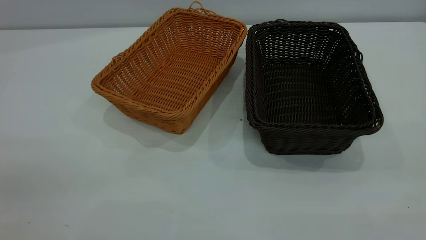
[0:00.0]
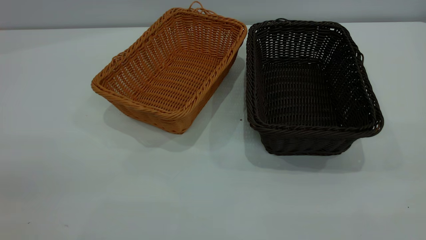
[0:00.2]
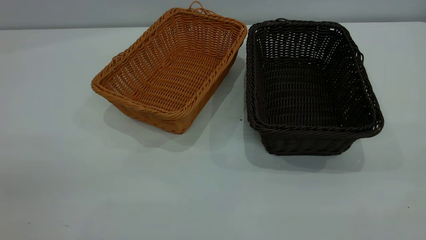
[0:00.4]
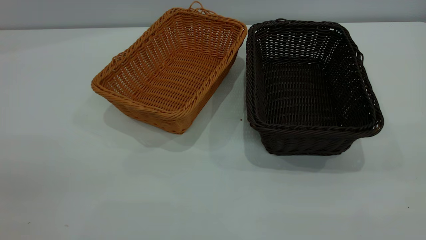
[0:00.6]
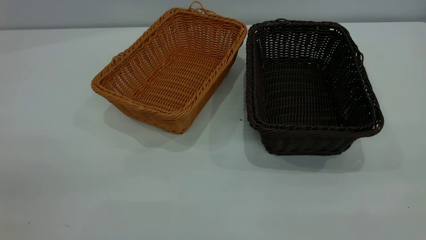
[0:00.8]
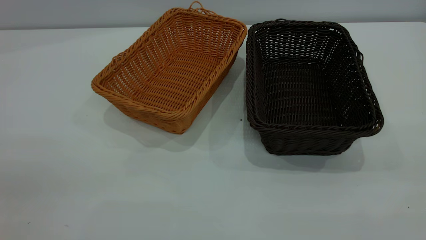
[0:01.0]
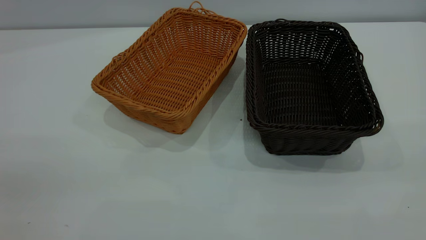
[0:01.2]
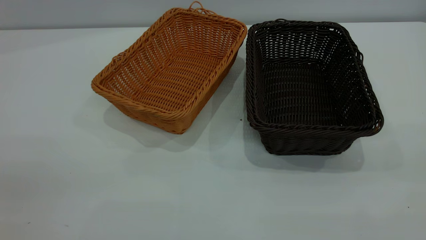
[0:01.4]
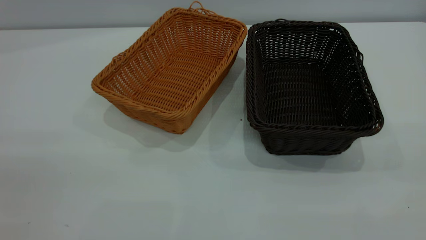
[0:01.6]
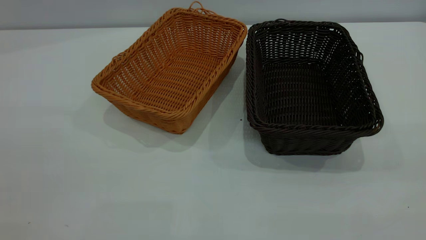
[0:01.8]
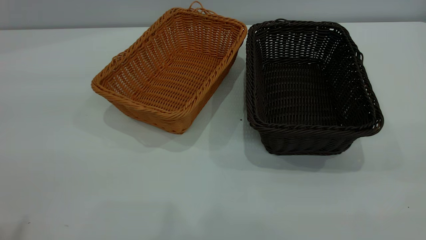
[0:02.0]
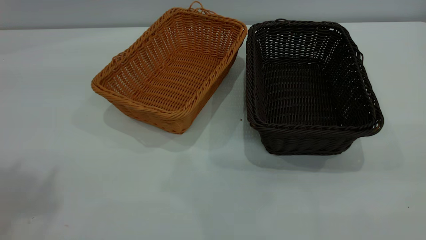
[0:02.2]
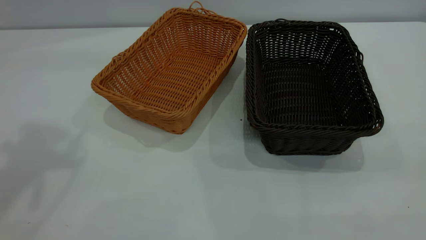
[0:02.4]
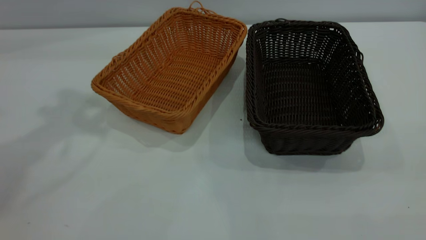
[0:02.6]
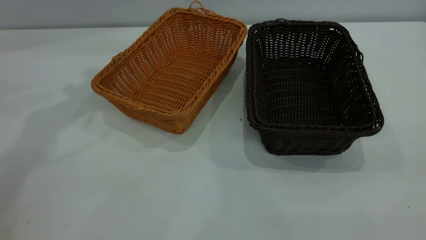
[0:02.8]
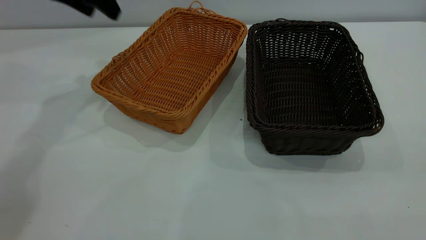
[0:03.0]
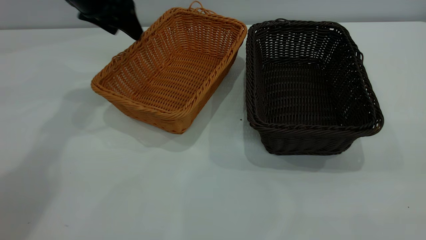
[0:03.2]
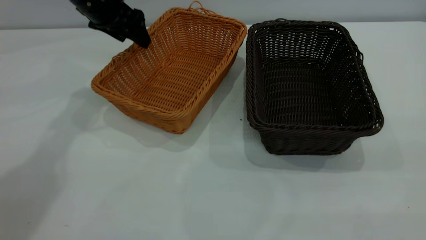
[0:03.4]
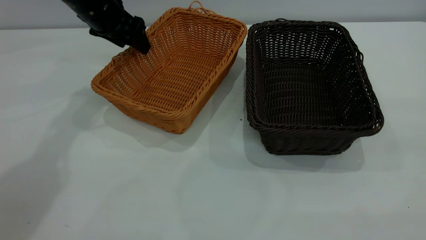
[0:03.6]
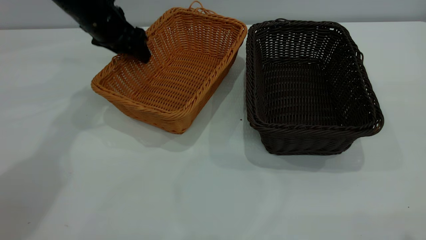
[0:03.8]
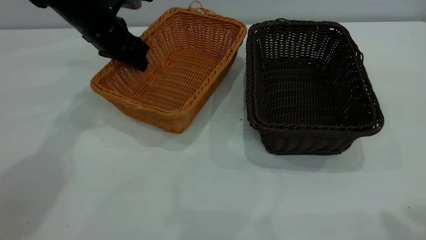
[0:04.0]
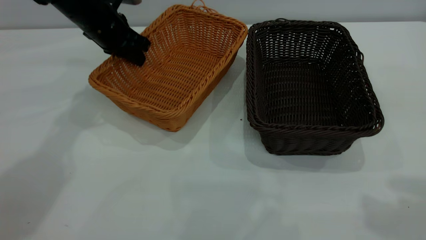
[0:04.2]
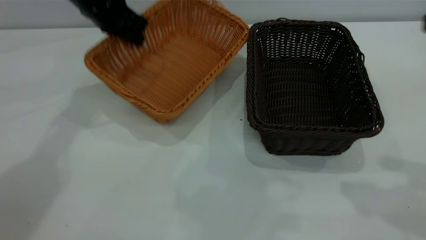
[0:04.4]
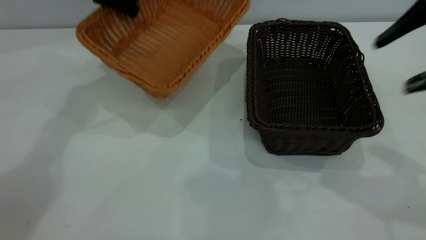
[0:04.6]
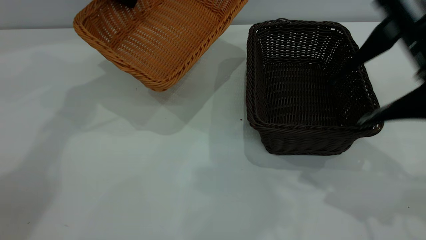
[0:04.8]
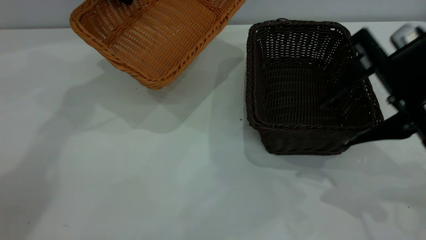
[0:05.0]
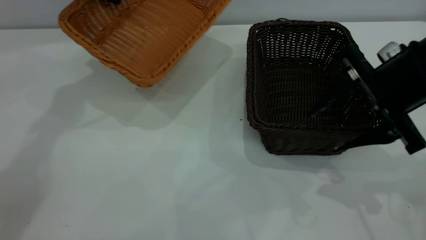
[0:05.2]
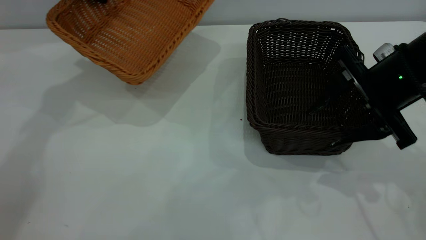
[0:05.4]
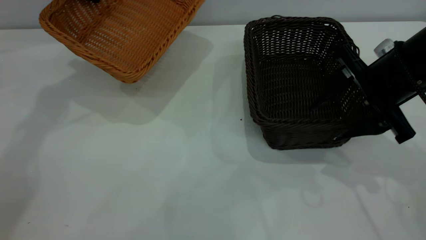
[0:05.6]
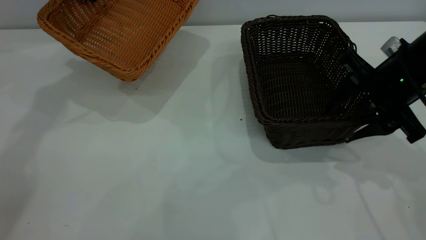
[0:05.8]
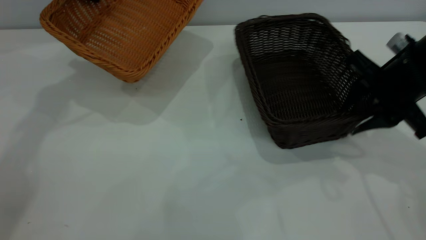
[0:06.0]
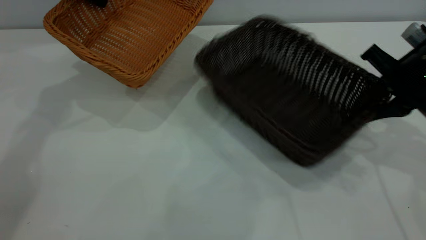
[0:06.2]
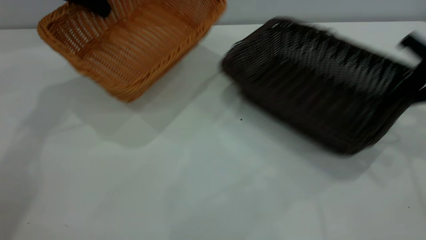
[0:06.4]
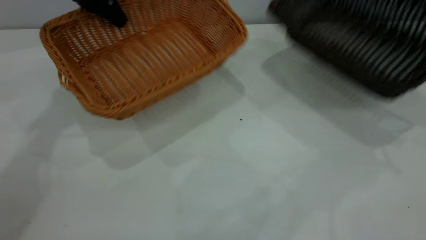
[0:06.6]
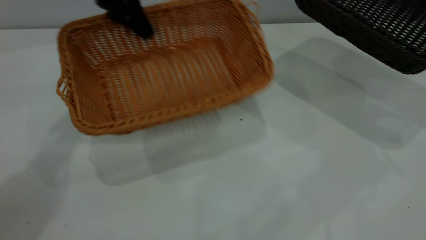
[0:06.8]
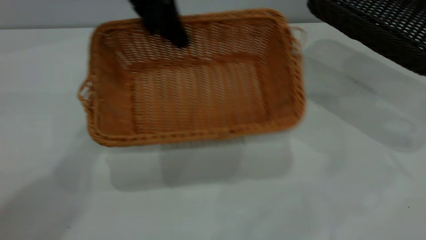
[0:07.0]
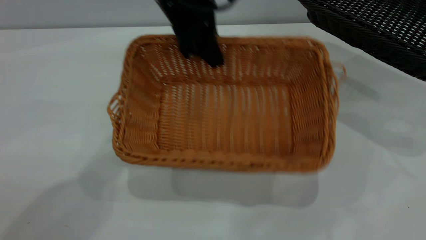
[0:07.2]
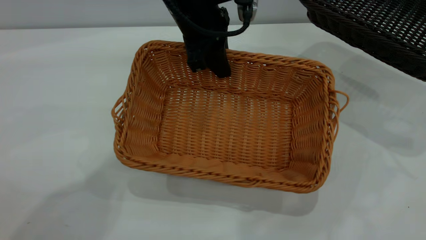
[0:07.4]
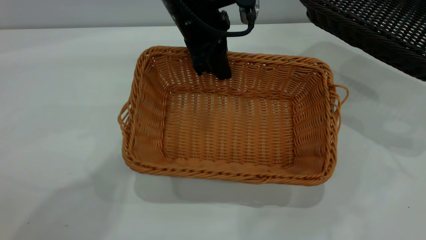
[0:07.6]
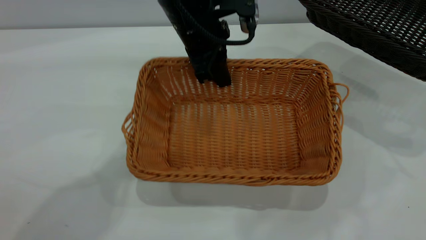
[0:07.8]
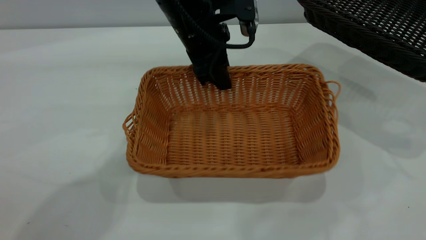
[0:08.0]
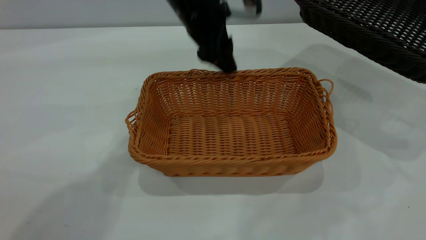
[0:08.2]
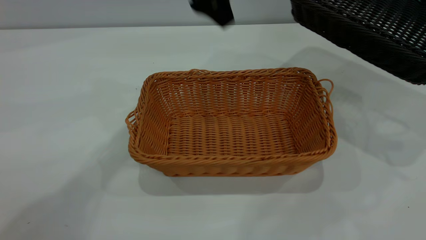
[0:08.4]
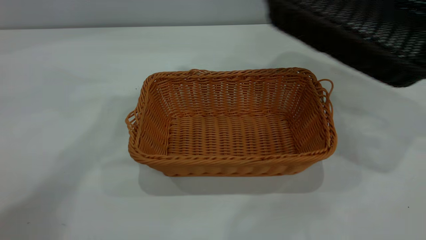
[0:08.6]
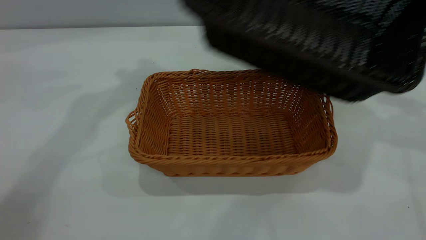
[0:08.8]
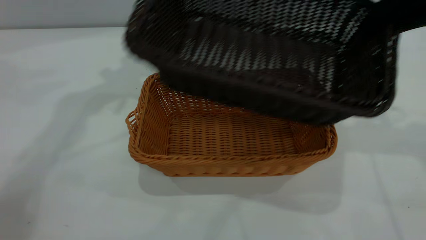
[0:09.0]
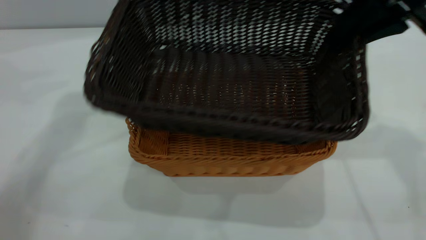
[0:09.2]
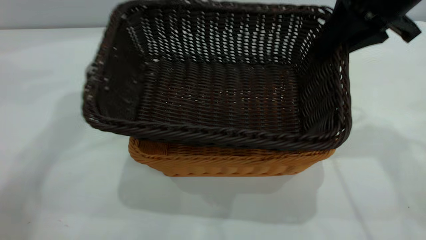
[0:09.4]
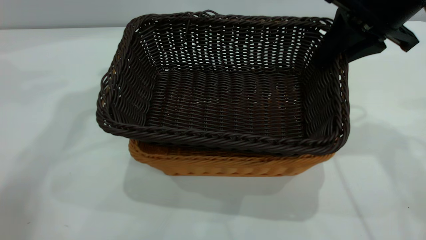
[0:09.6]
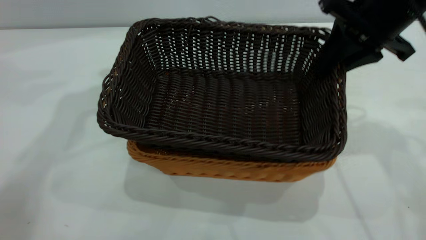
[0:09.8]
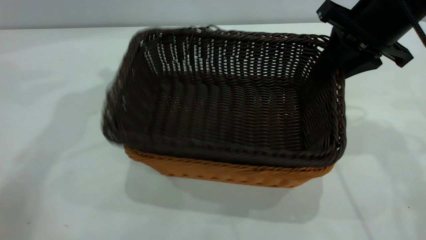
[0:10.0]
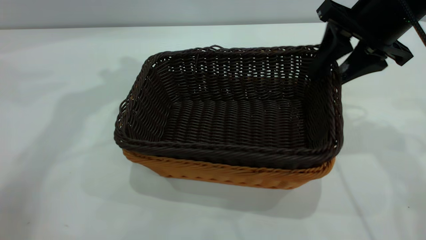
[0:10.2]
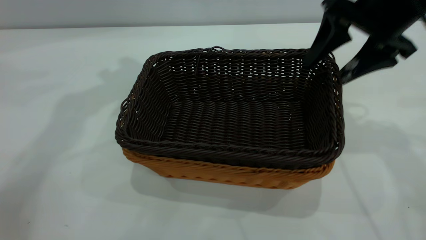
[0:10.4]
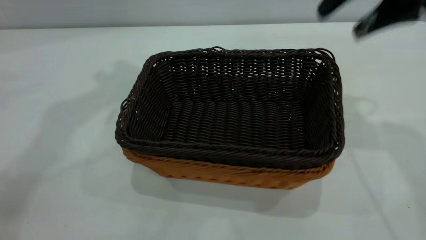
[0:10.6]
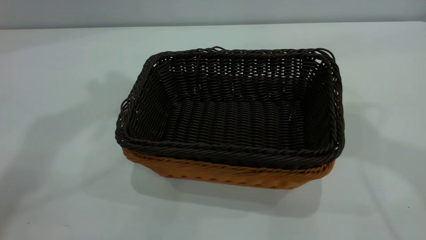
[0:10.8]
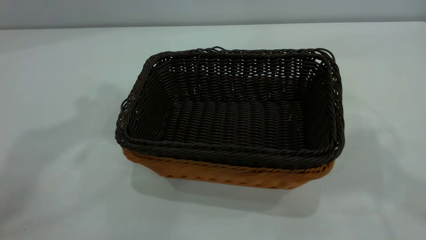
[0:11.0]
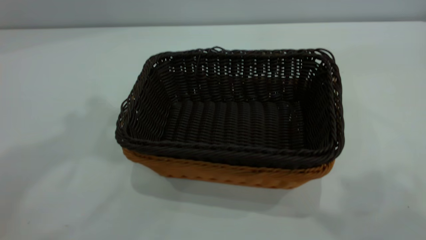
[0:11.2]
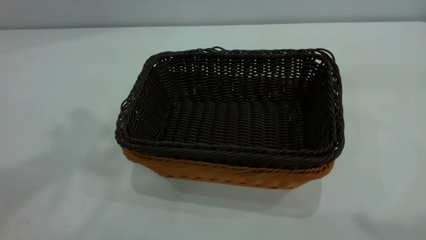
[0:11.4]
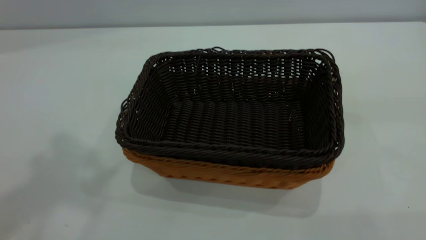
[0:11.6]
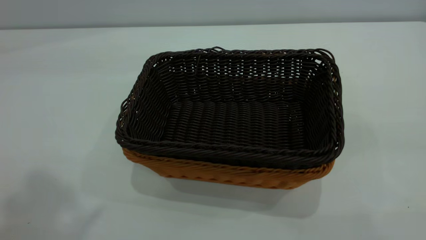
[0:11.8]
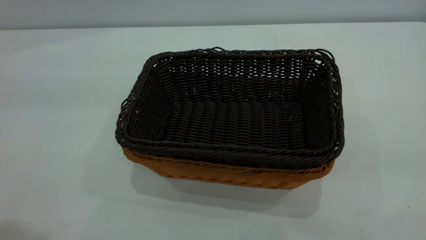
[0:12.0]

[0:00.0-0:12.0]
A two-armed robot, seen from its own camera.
Task of the whole recording: the left gripper grasp the brown basket and place it in the center of the table, the right gripper grasp the black basket and place it inside the brown one.
Step, 0:00.0 to 0:04.8: Pick up the light basket with the right gripper.
Step, 0:05.0 to 0:08.2: Place the light-colored basket in the center.
Step, 0:08.4 to 0:10.4: Place the dark basket on top of the light basket.
0:01.6 to 0:03.0: The left gripper goes about 50 cm forward.
0:03.0 to 0:04.4: The left gripper closes up. Meanwhile the right gripper moves forward, about 20 cm.
0:04.4 to 0:06.0: The left gripper is displaced to the left and upward by about 10 cm, while the right gripper moves downward and forward, some 20 cm, and closes its fingers.
0:06.0 to 0:07.6: The left gripper is displaced to the right and backward by roughly 25 cm, while the right gripper shifts roughly 20 cm to the right and upward.
0:07.6 to 0:09.0: The right gripper goes approximately 20 cm to the left, while the left gripper moves upward and to the left, about 20 cm, and opens its fingers.
0:09.0 to 0:10.4: The right gripper shifts by roughly 5 cm, and opens up.
0:10.4 to 0:12.0: The left gripper shifts approximately 35 cm backward; the right gripper shifts some 40 cm backward and upward.

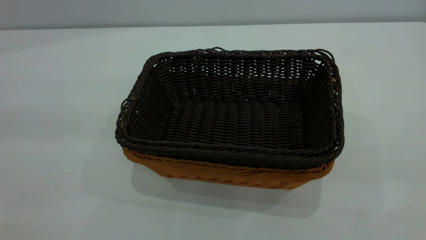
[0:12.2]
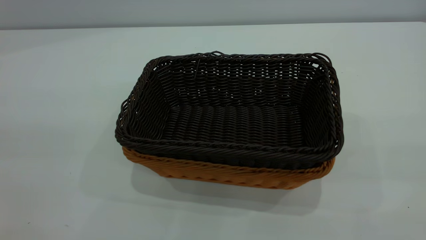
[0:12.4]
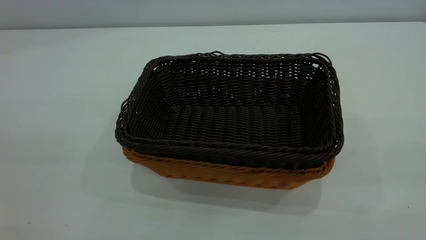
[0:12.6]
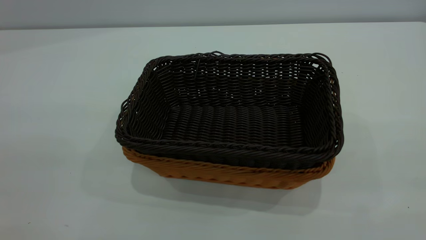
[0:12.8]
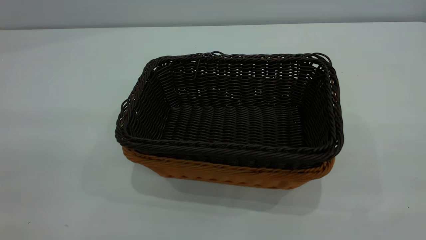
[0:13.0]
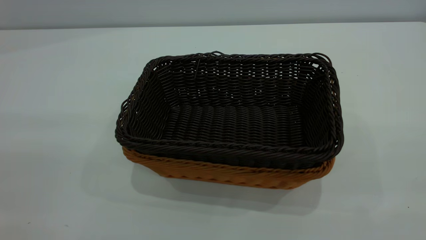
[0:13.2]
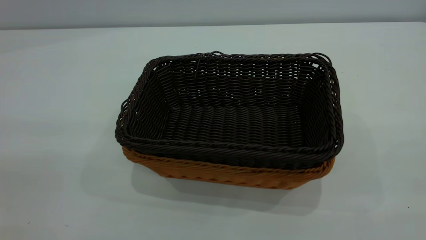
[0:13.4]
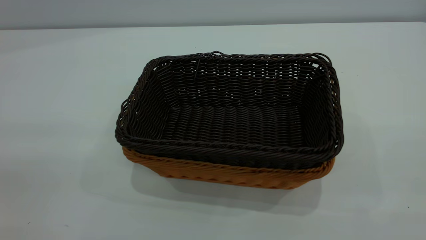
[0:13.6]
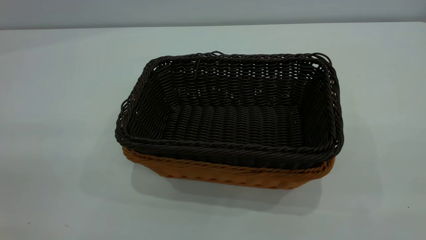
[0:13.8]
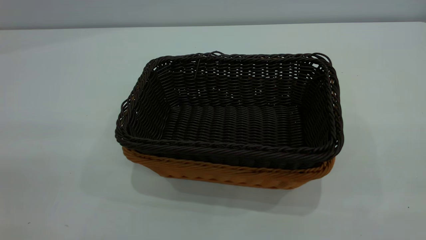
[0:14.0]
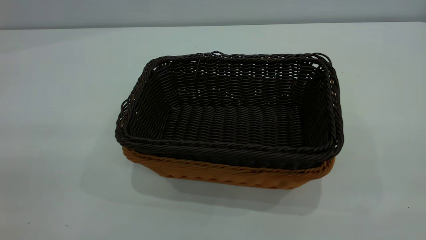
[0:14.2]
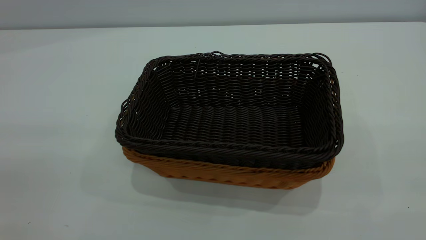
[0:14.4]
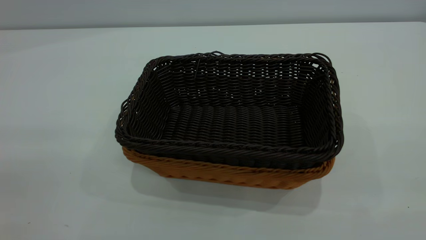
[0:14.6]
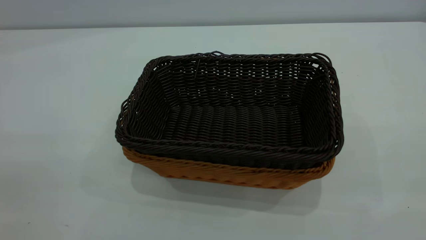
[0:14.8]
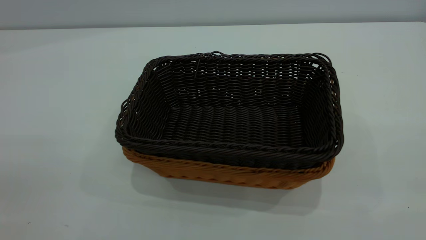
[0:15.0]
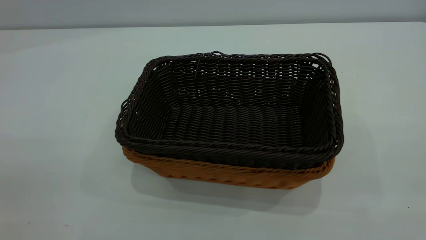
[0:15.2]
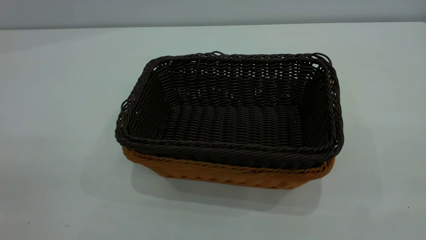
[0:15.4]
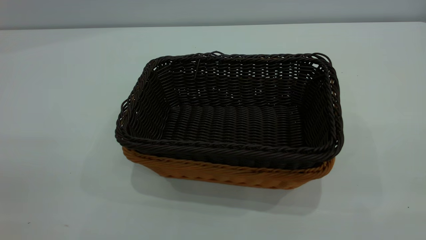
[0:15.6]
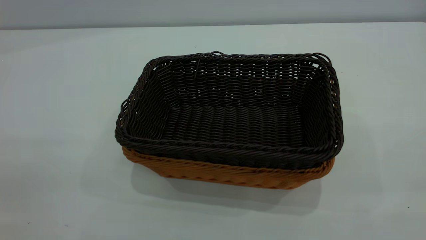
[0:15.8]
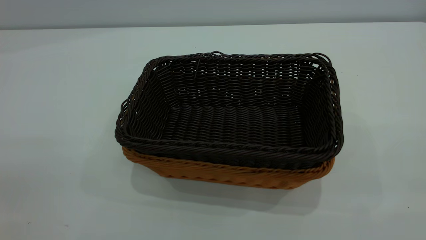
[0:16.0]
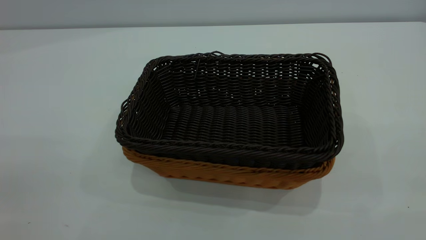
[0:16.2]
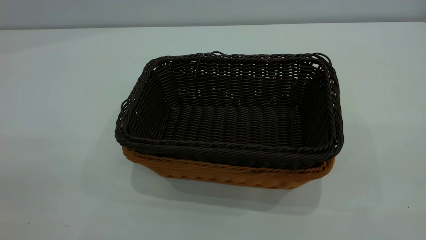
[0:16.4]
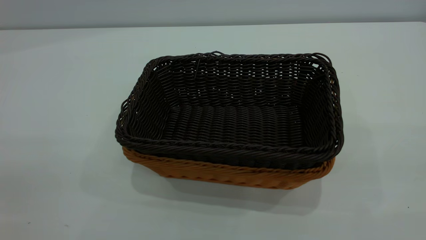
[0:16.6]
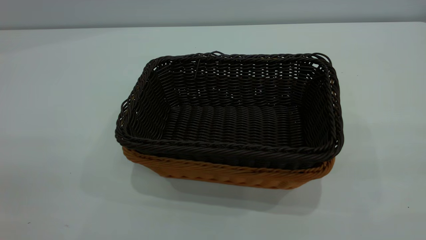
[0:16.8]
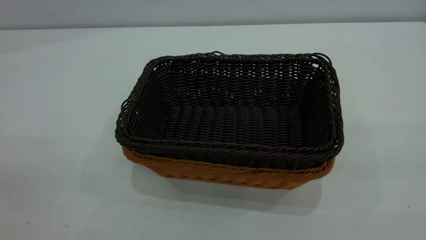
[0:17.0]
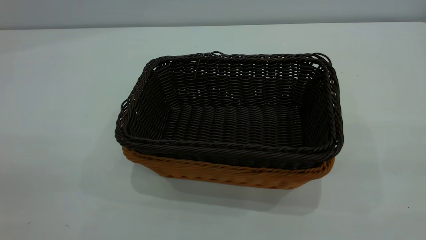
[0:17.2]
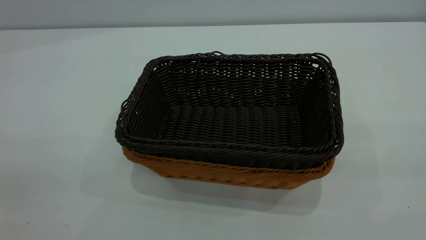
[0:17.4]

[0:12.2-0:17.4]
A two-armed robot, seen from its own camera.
Task of the whole recording: the left gripper grasp the brown basket and place it in the center of the table, the right gripper grasp the black basket and place it inside the brown one.
0:12.2 to 0:14.0: The left gripper heads downward and to the left, covering approximately 10 cm.
